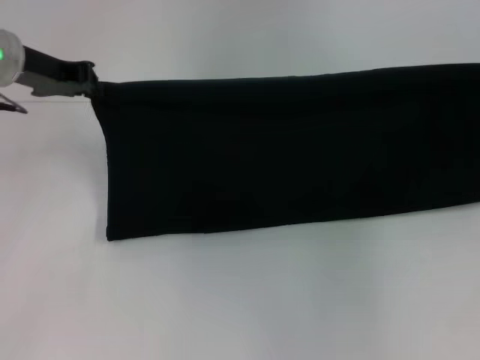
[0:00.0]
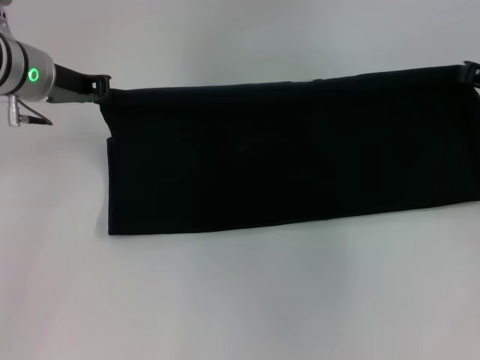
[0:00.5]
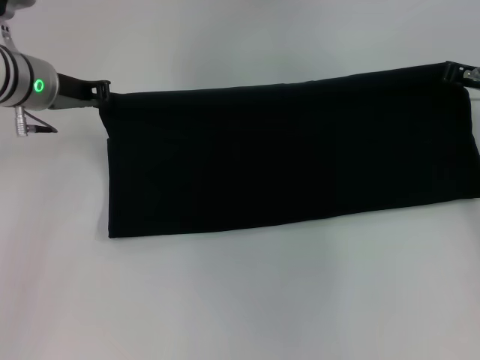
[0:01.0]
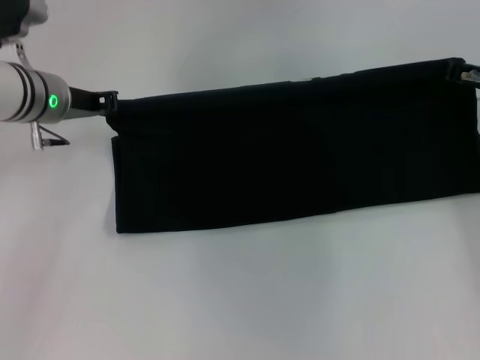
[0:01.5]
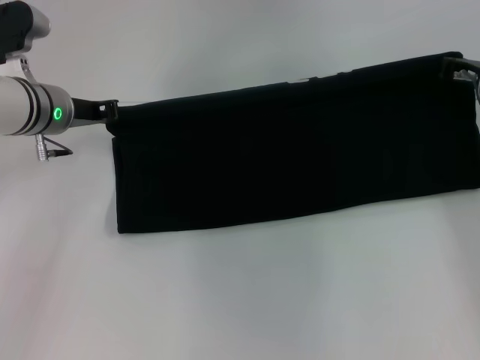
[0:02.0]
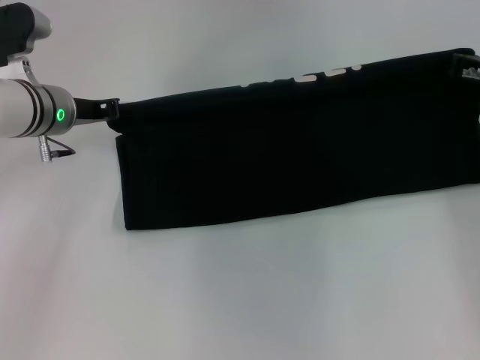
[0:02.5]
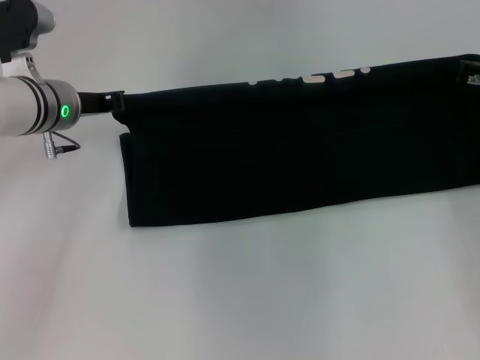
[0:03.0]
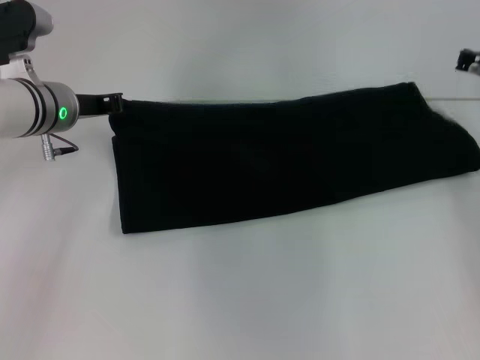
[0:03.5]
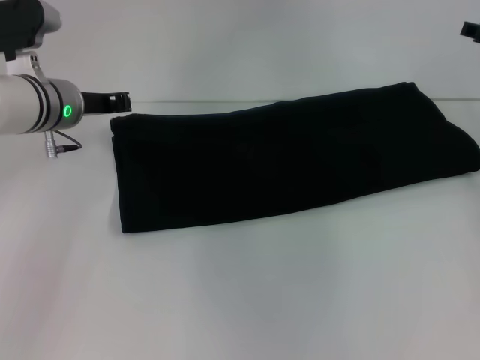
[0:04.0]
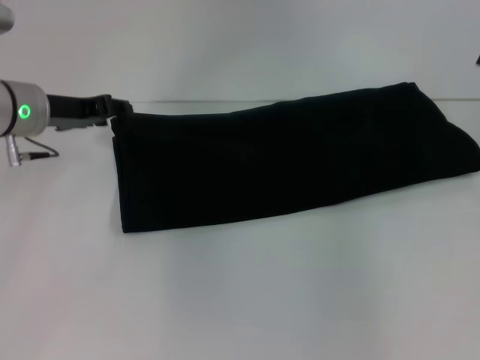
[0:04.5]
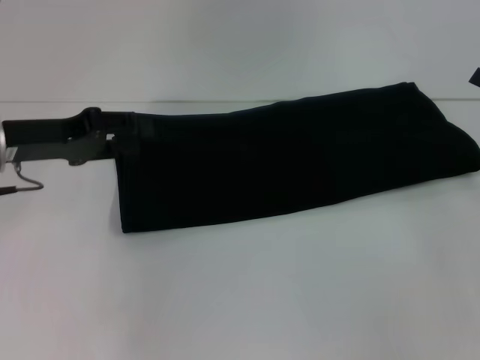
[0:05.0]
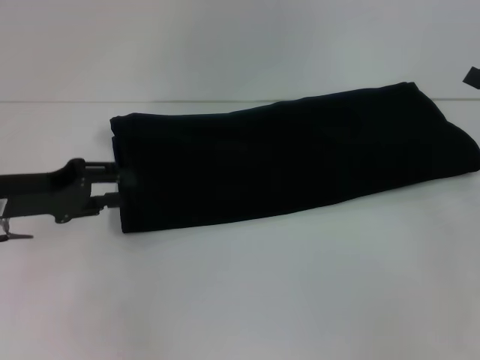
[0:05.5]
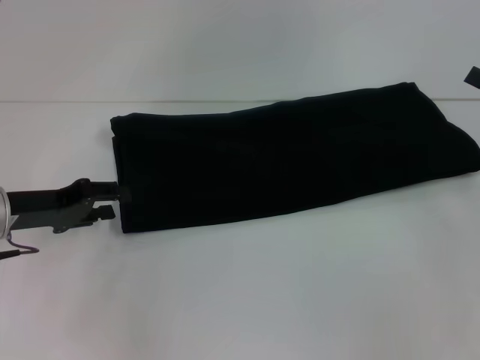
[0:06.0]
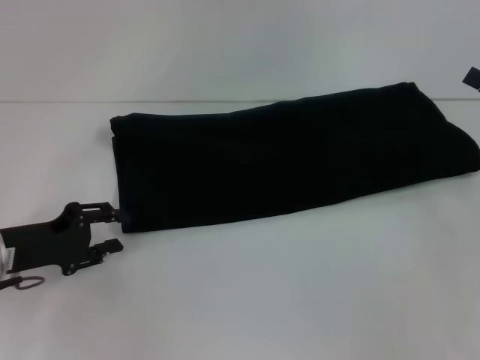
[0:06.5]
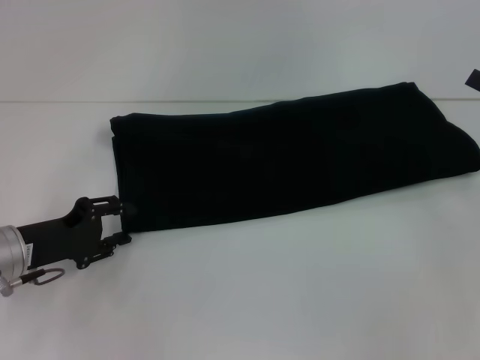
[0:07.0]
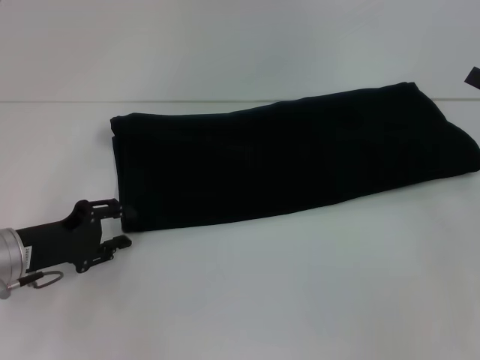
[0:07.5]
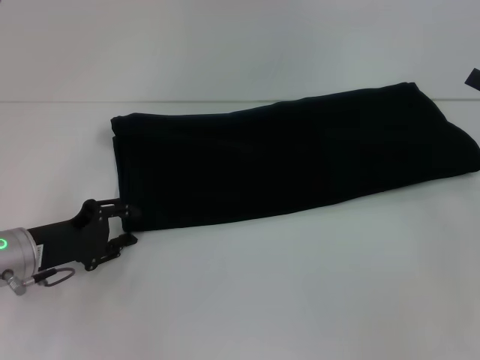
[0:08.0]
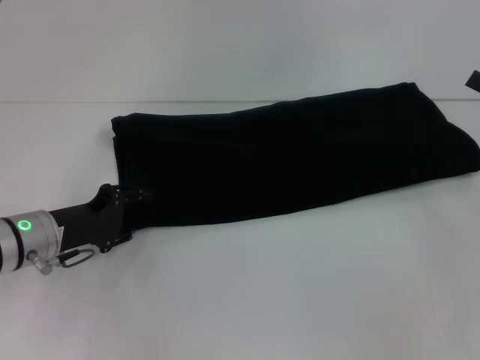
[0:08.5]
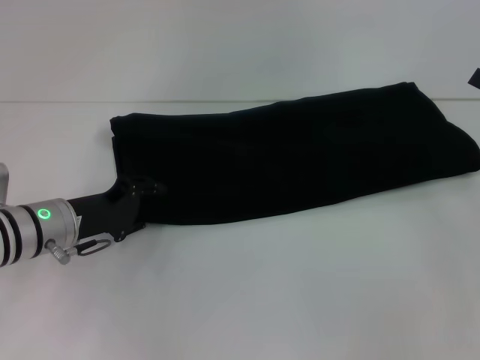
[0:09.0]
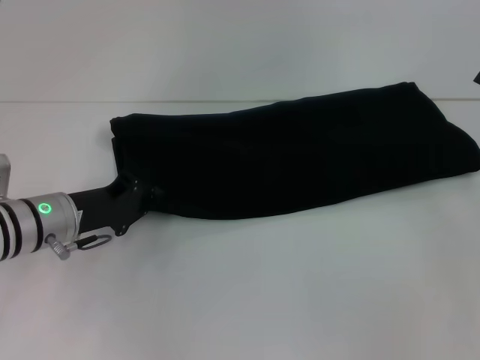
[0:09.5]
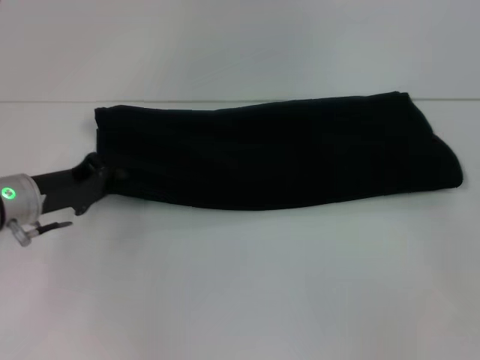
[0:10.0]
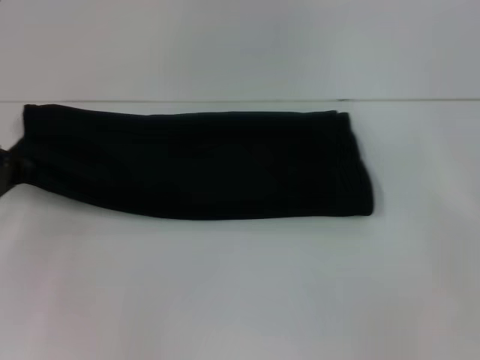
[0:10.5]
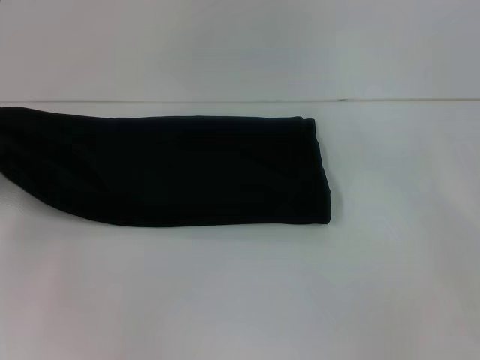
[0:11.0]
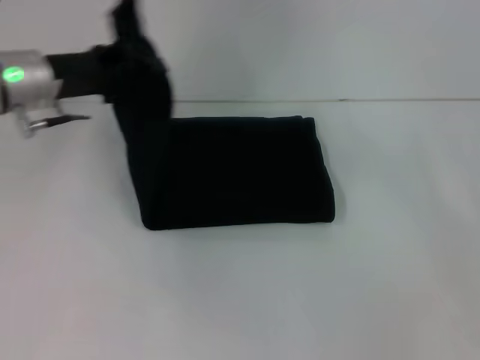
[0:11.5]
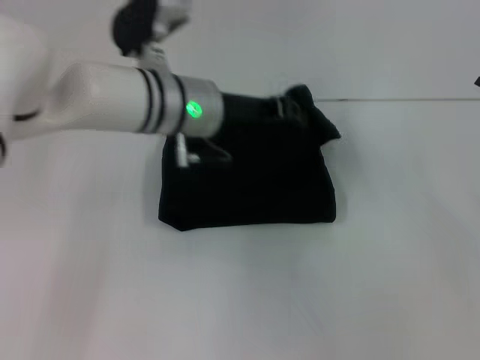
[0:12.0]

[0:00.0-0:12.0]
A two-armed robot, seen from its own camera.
Step, 0:00.0 to 0:04.0: Fold the clothes with your right hand.
0:00.0 to 0:02.0: The left gripper moves downward, some 10 cm. Meanwhile the right gripper heads to the left and downward, covering approximately 10 cm.
0:02.0 to 0:04.0: The right gripper changes place by some 5 cm, and opens its fingers.
0:04.0 to 0:06.0: The left gripper travels backward, to the left and downward by about 15 cm, and opens.
0:06.0 to 0:08.0: The left gripper shifts by roughly 5 cm.
0:08.0 to 0:10.0: The left gripper shifts by approximately 5 cm, and closes up.
0:10.0 to 0:12.0: The left gripper goes some 20 cm to the right and upward.

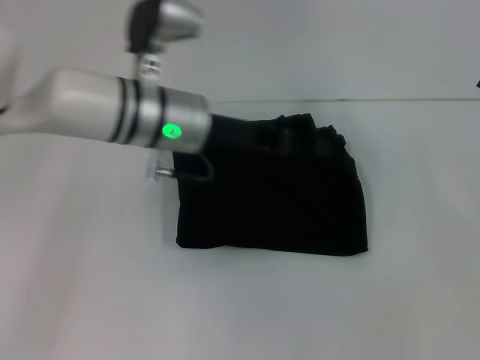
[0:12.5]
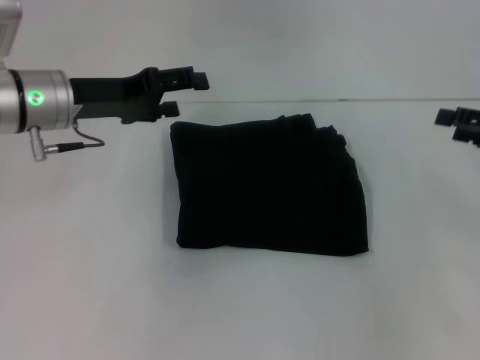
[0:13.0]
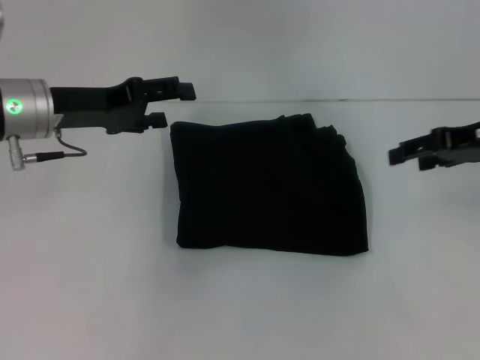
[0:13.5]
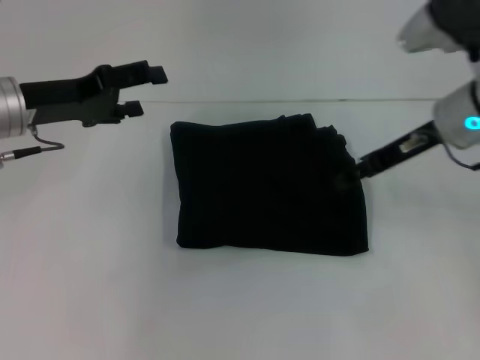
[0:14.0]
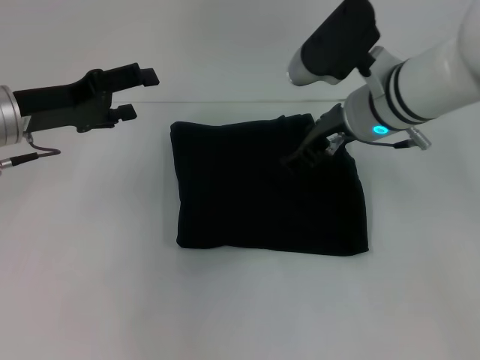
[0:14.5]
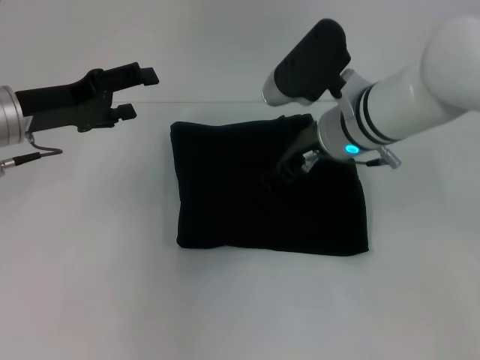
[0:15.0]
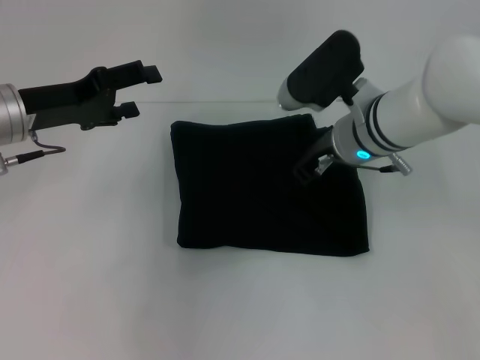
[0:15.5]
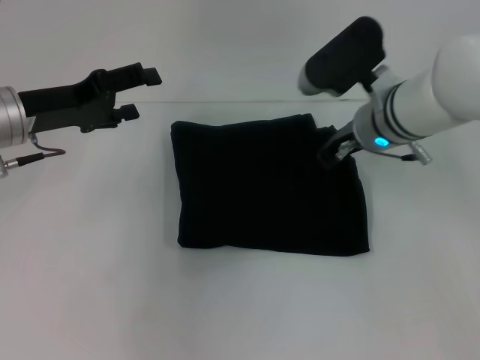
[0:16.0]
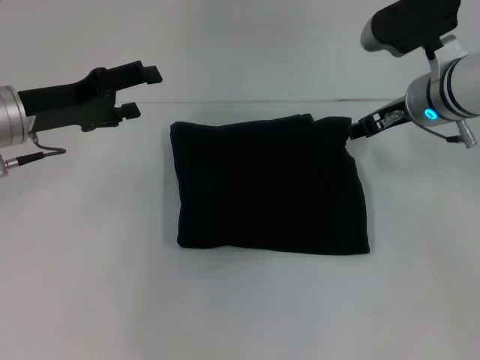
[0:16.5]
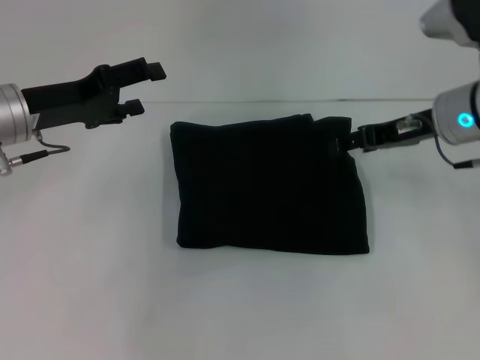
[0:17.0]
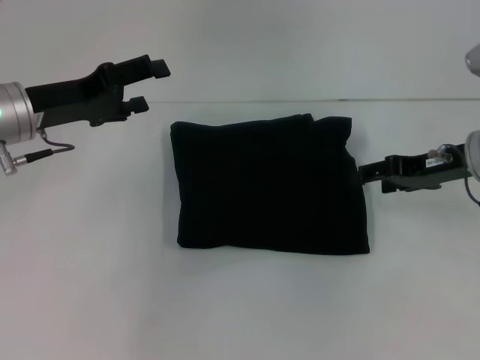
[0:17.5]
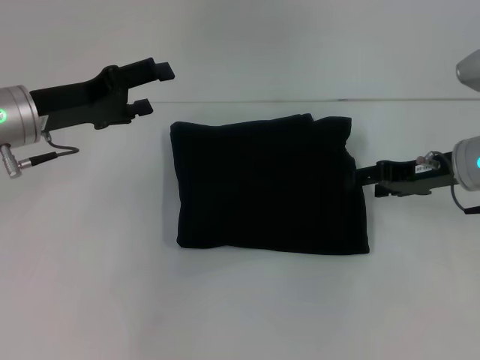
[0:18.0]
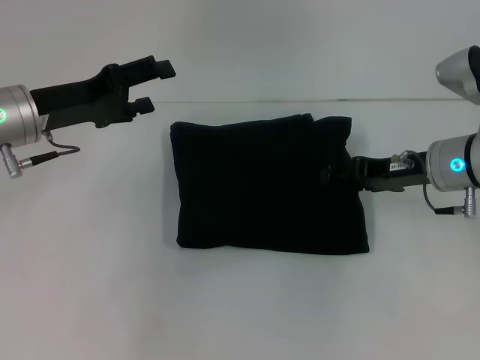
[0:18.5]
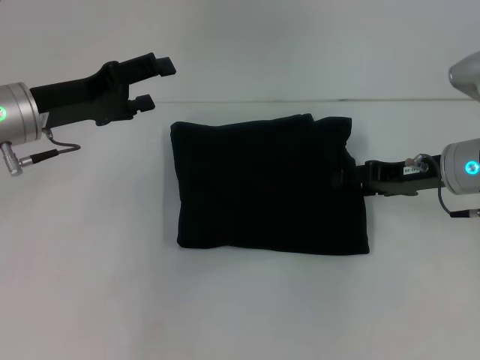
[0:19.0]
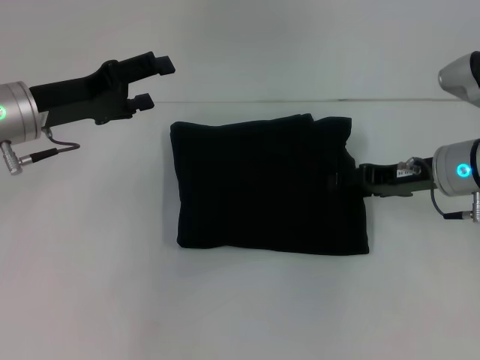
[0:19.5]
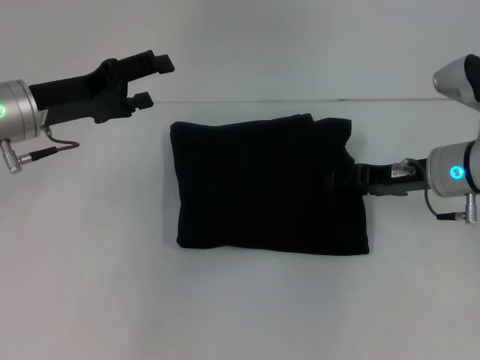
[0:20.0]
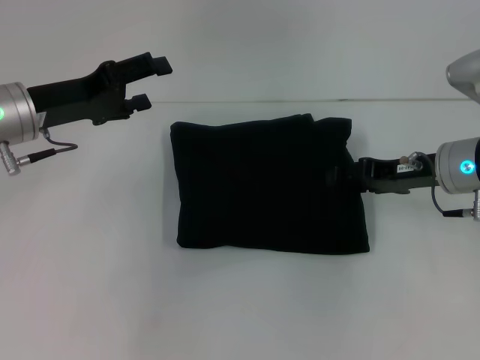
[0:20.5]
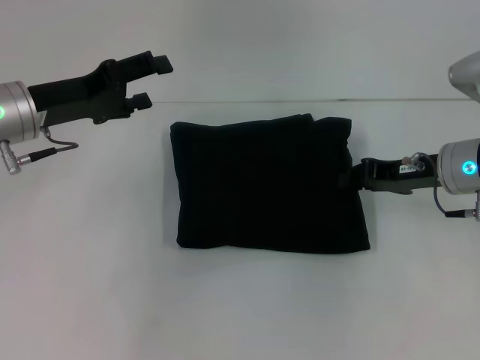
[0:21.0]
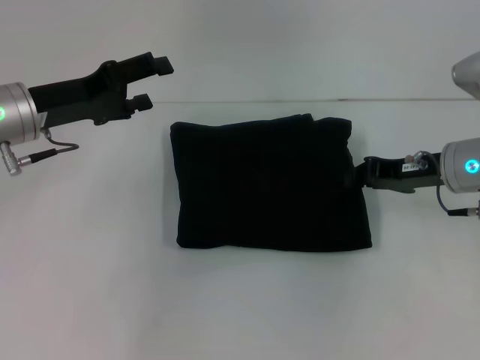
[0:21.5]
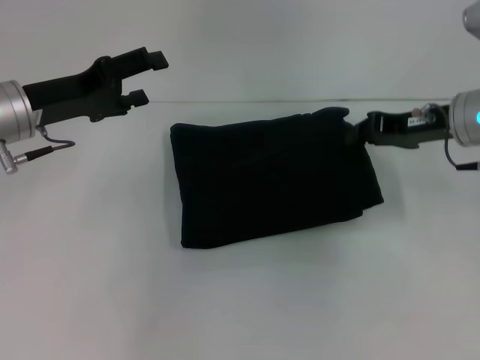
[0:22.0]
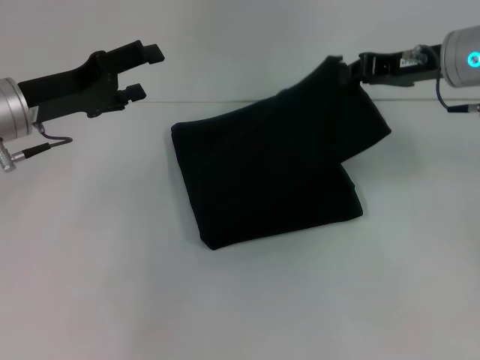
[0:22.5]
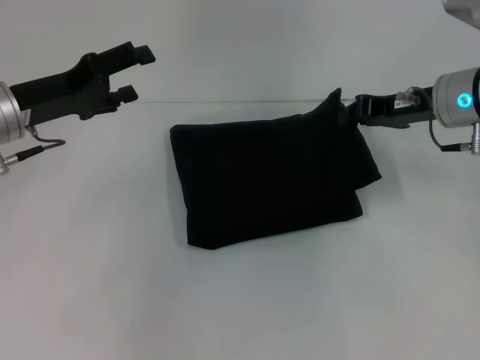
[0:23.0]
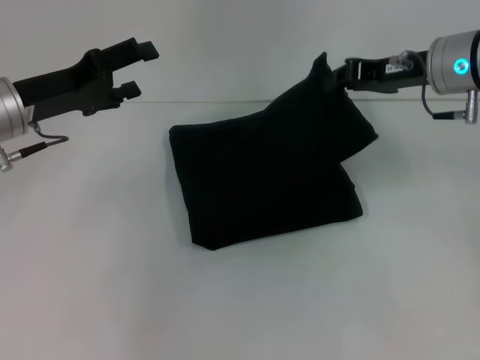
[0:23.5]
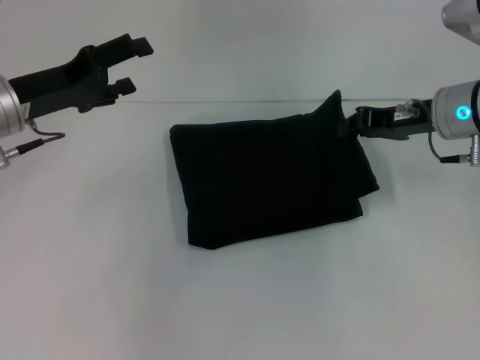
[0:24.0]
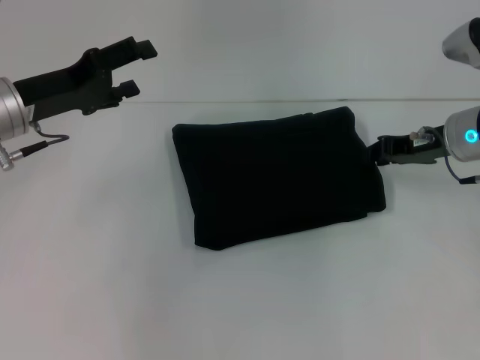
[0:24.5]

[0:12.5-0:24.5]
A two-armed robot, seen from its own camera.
0:12.5 to 0:14.5: Both grippers move to the left, roughly 20 cm. The left gripper opens up.
0:14.5 to 0:16.5: The right gripper is displaced to the right by roughly 5 cm.
0:16.5 to 0:18.5: The right gripper shifts roughly 5 cm downward.
0:18.5 to 0:20.5: Neither gripper changes place.
0:20.5 to 0:22.5: The right gripper travels upward by roughly 10 cm, and closes up.
0:22.5 to 0:24.5: The right gripper travels downward by roughly 10 cm.

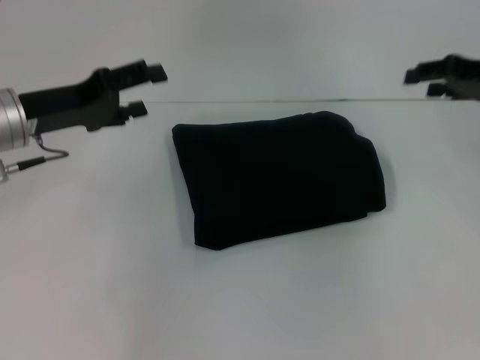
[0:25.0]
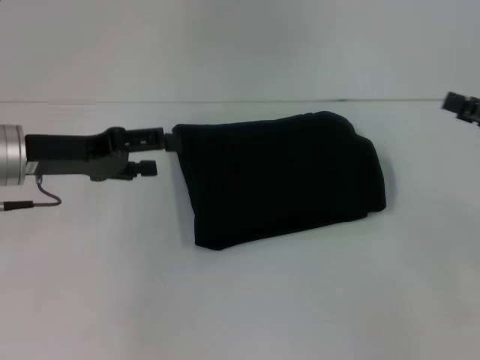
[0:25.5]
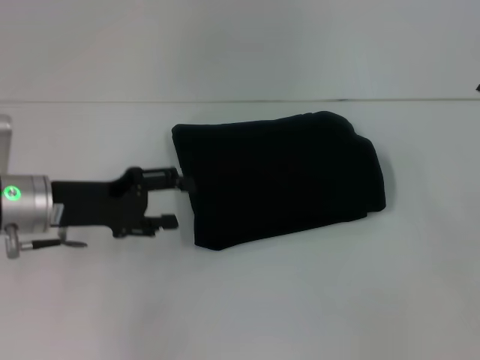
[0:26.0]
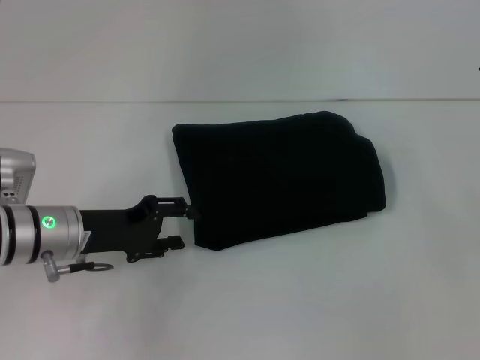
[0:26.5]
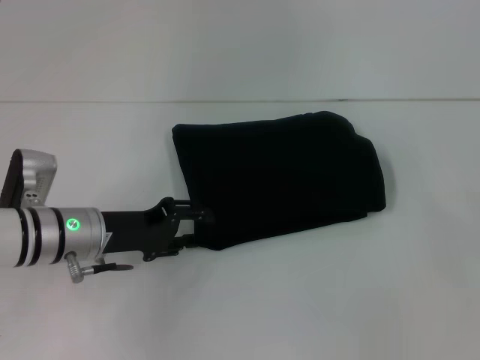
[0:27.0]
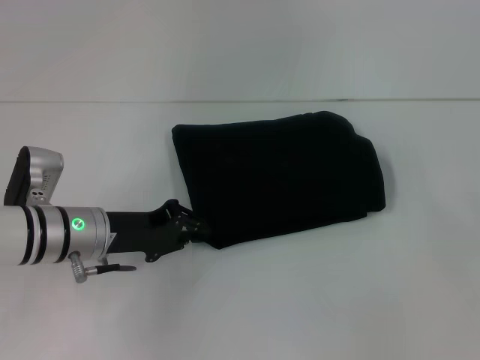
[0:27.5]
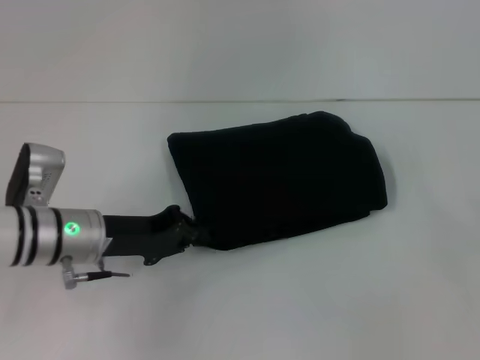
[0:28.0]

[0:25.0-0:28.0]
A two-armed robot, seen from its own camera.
0:25.0 to 0:26.5: The right gripper heads backward and to the right, covering approximately 10 cm, and opens. The left gripper moves downward, about 10 cm.
0:26.5 to 0:28.0: The left gripper closes up.
